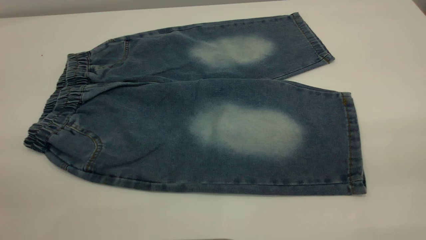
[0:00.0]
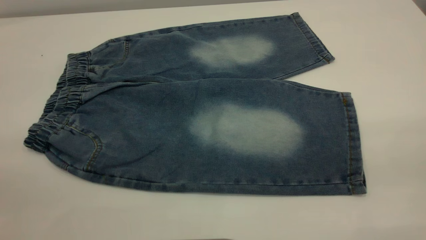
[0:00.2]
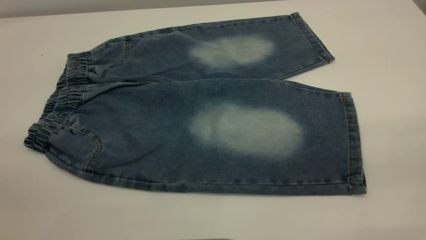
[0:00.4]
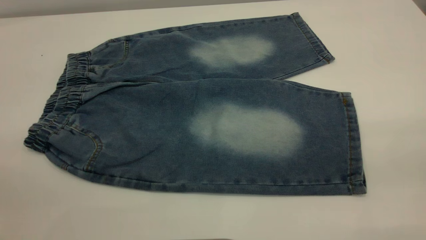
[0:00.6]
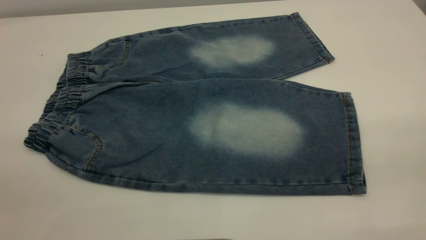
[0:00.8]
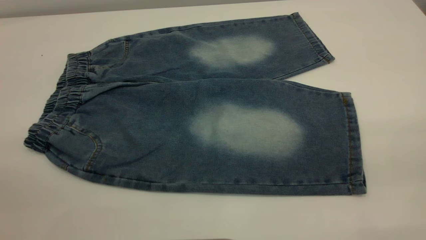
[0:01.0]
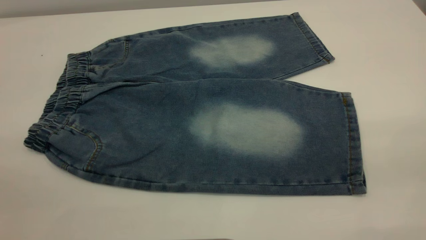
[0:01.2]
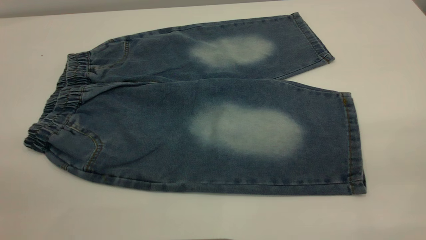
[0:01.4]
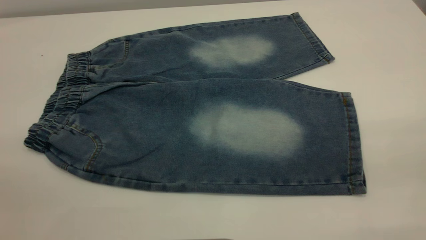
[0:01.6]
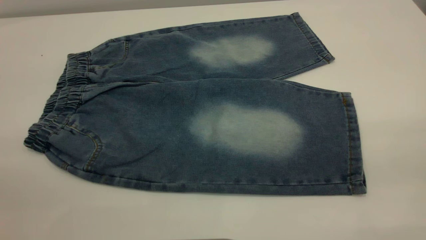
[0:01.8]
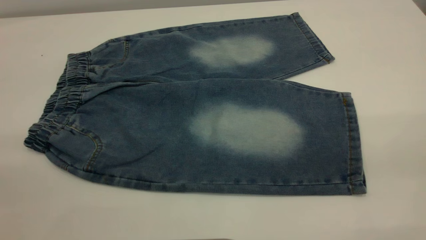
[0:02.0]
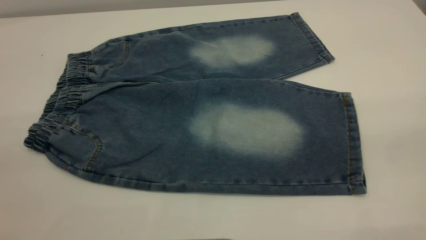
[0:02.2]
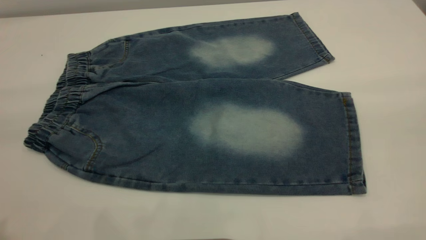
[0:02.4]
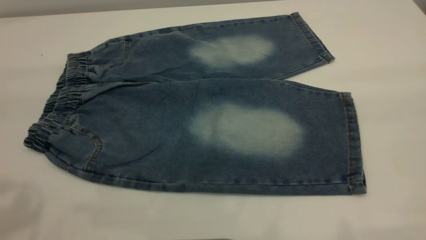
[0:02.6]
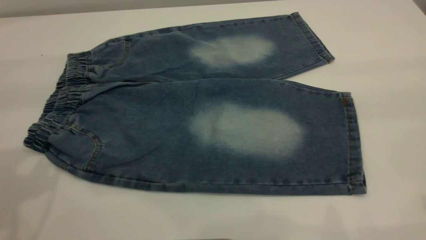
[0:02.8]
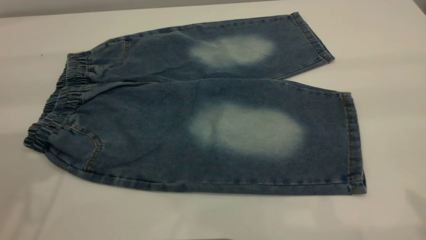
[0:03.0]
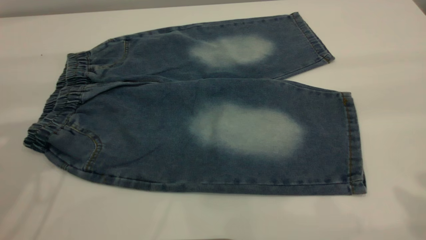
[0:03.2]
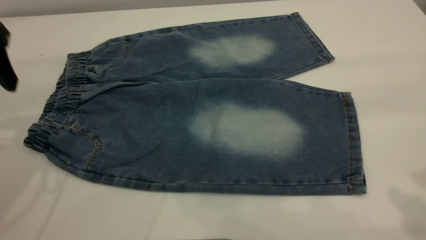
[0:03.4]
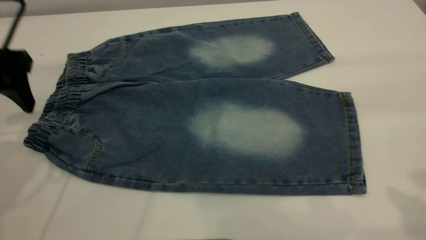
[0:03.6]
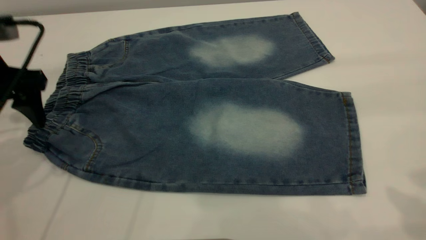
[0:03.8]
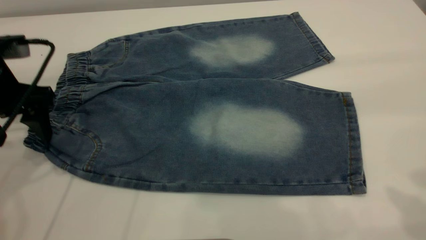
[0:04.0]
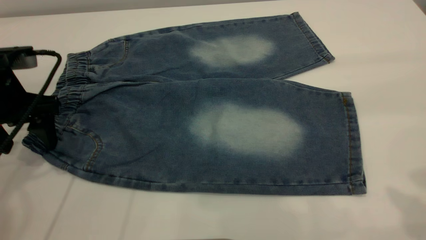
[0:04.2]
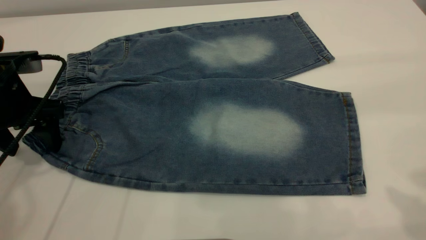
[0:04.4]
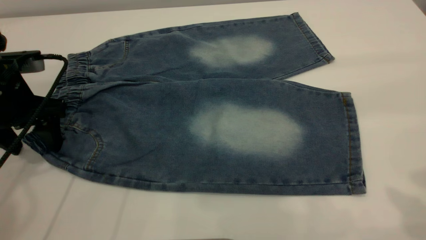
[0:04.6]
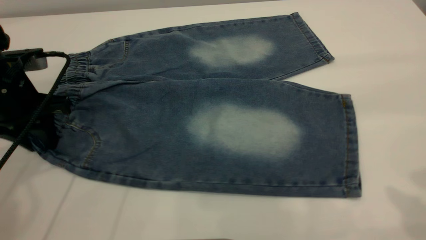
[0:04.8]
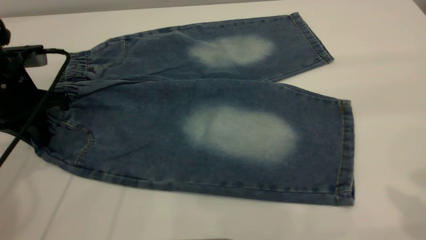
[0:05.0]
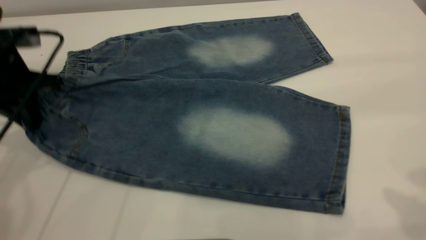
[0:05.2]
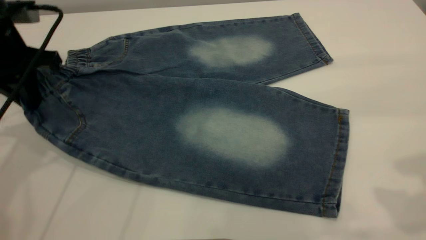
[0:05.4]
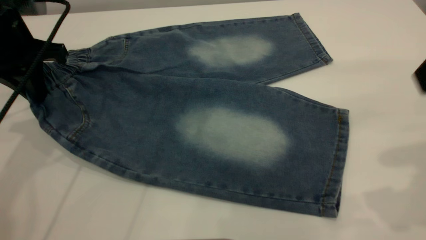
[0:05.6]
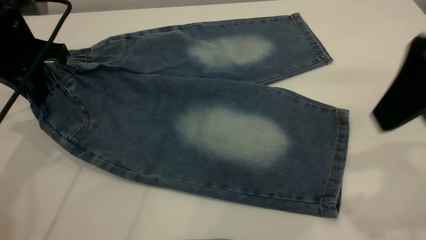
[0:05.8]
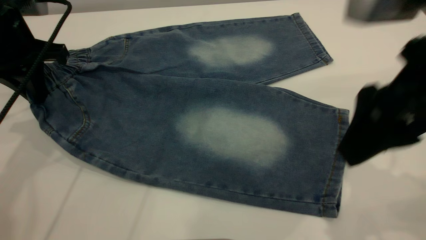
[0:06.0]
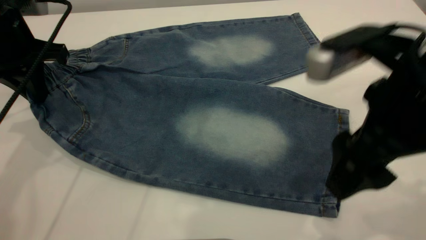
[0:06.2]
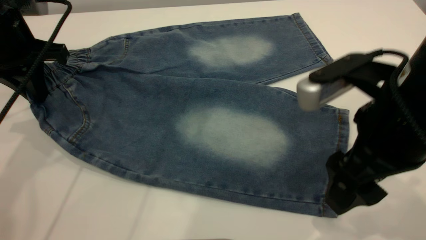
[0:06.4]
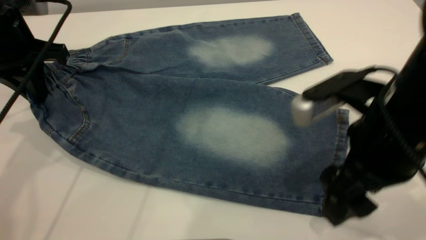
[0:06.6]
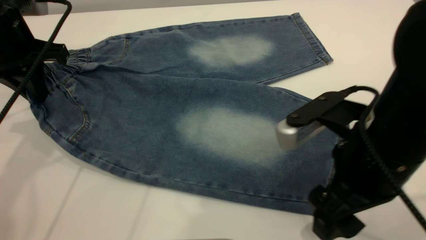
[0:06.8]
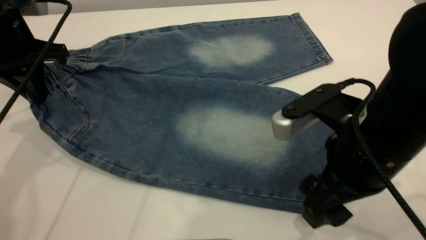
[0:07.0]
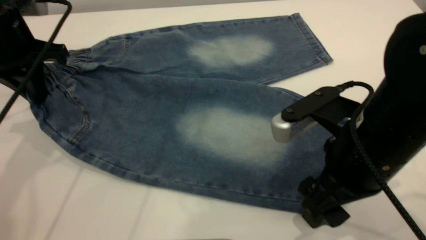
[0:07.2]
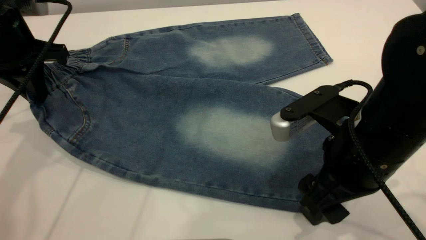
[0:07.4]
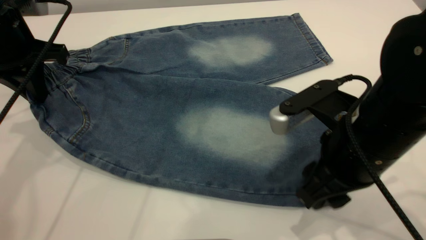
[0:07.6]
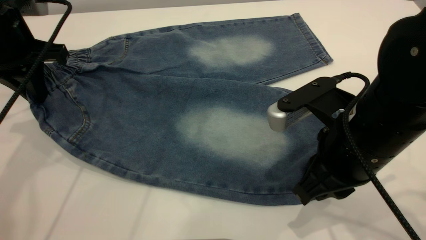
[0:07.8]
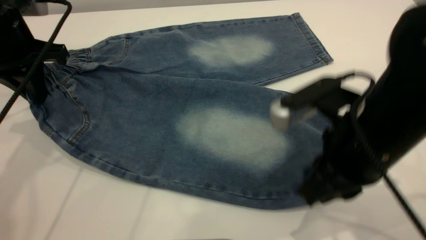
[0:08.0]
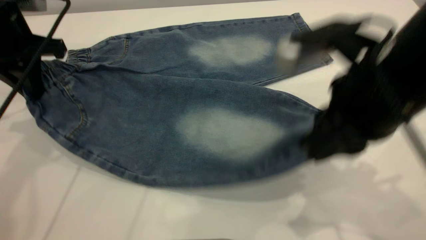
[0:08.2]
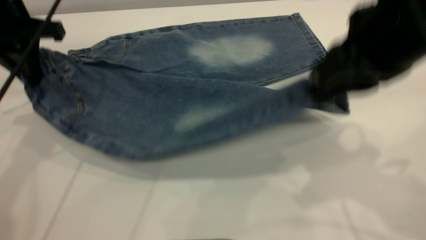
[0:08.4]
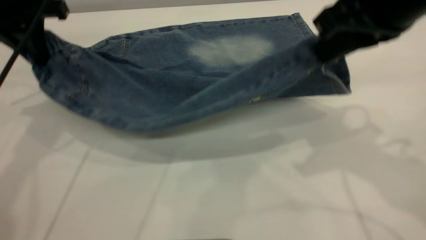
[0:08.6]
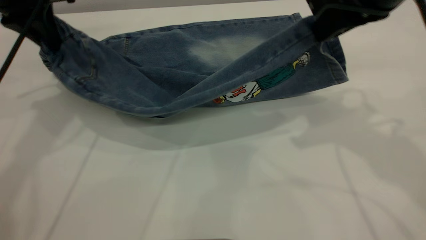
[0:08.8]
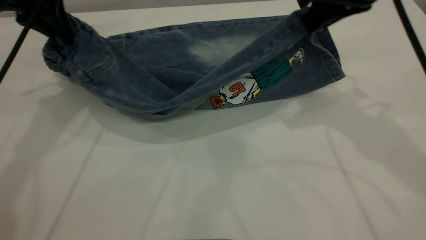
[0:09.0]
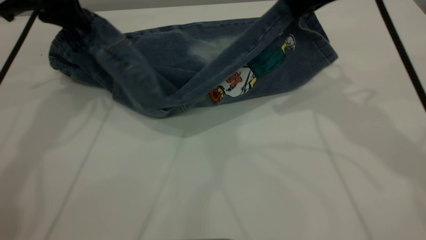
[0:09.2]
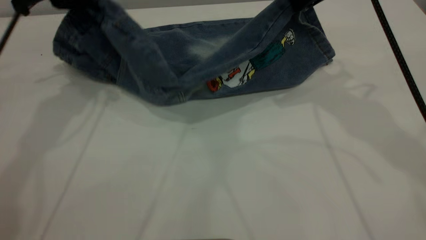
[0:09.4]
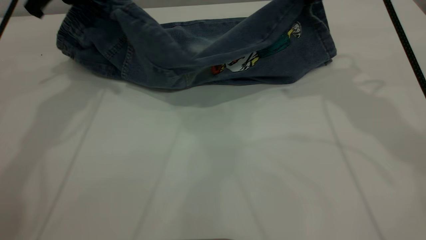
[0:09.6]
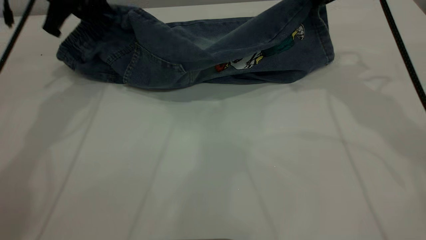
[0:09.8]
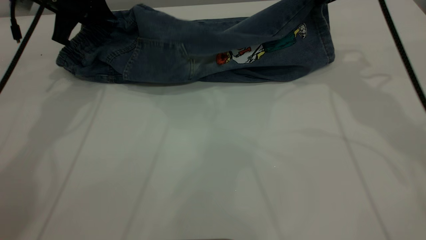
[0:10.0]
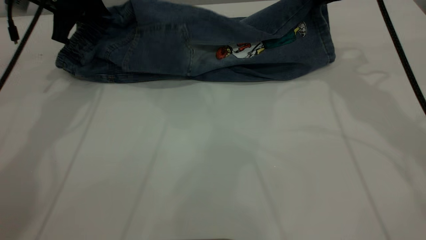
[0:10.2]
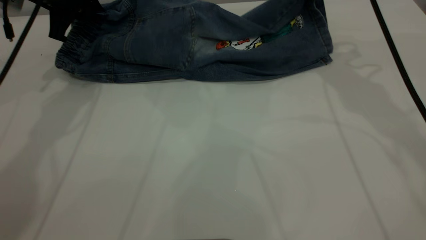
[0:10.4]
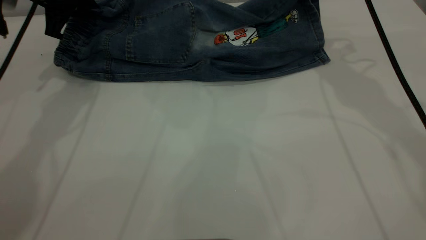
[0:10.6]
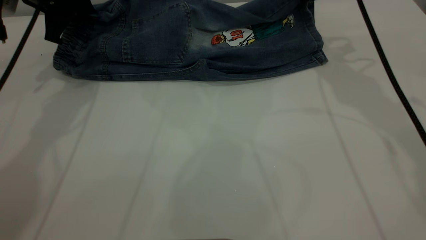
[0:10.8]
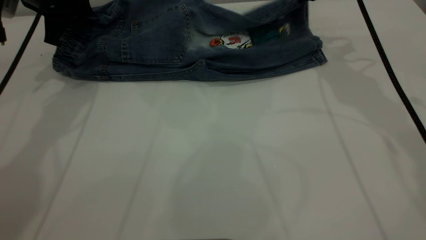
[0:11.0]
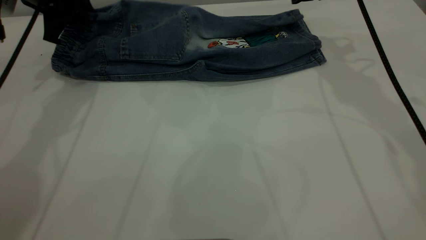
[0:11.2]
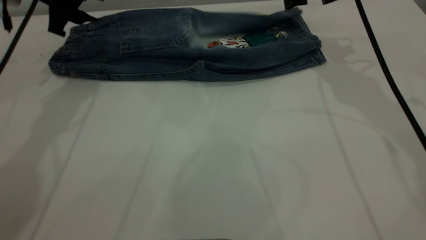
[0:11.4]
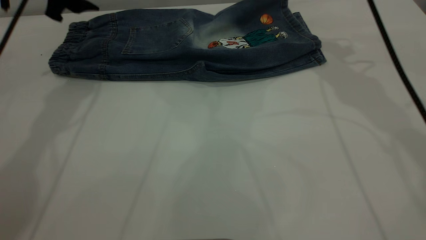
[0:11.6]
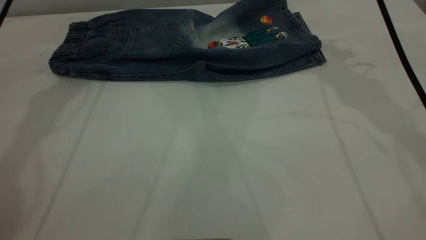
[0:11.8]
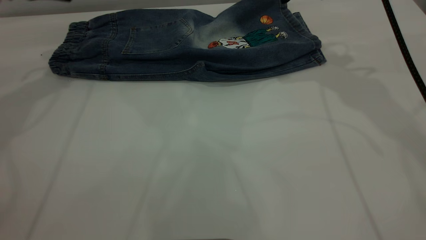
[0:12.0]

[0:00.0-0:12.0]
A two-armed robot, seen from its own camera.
Step, 0:00.0 to 0:11.6: Fold the bottom of the pants upward.
0:00.0 to 0:01.6: Neither gripper changes place.
0:03.0 to 0:04.4: The left gripper goes roughly 20 cm downward.
0:04.4 to 0:06.0: The right gripper is displaced downward and to the left by some 15 cm, while the left gripper goes some 5 cm upward, and closes up.
0:06.0 to 0:07.6: The right gripper is displaced downward by roughly 10 cm, and closes.
0:07.6 to 0:09.0: The right gripper is displaced forward and upward by roughly 20 cm, and closes. Meanwhile the left gripper moves forward, approximately 5 cm.
0:09.0 to 0:10.4: The left gripper moves some 5 cm. The right gripper heads forward, covering approximately 10 cm.
0:10.4 to 0:12.0: The left gripper heads to the left, covering some 5 cm, and opens; the right gripper opens up.

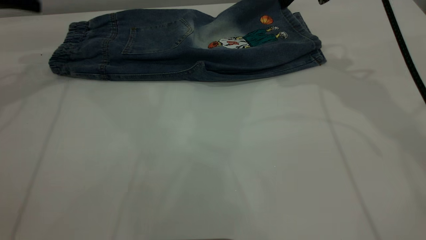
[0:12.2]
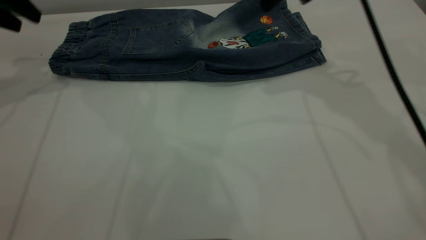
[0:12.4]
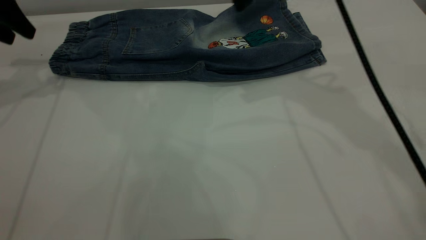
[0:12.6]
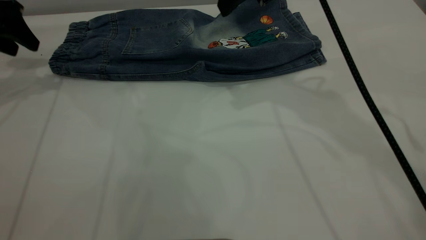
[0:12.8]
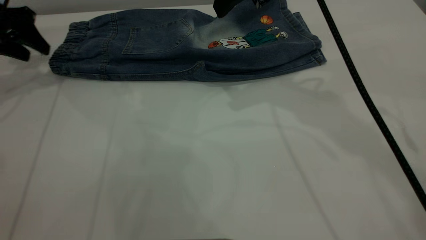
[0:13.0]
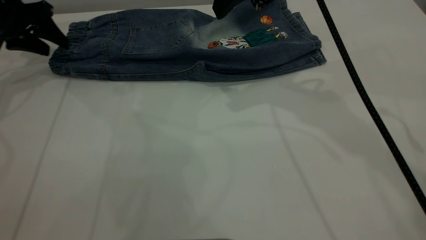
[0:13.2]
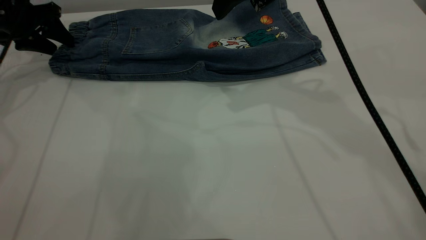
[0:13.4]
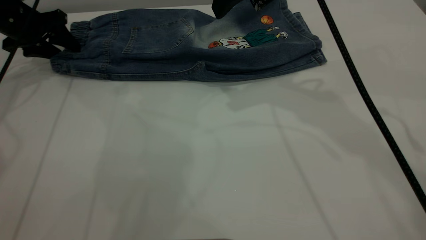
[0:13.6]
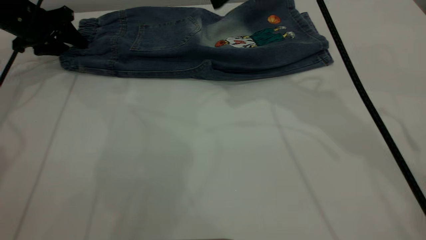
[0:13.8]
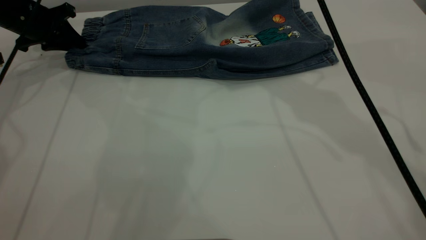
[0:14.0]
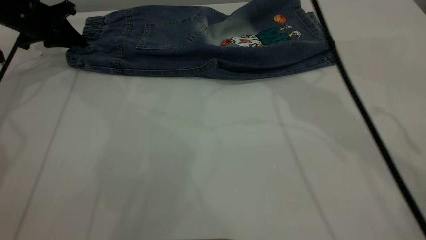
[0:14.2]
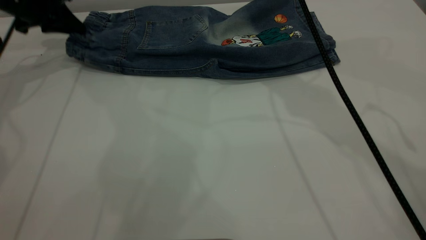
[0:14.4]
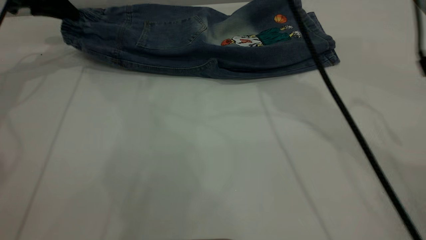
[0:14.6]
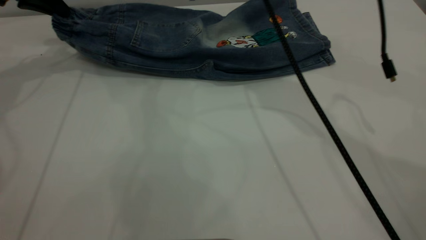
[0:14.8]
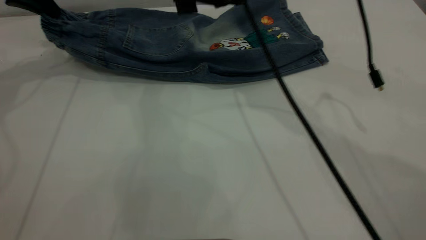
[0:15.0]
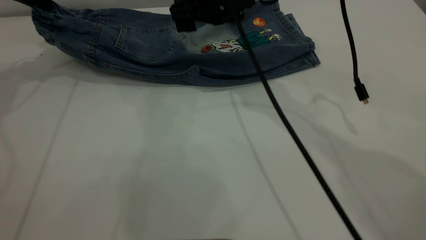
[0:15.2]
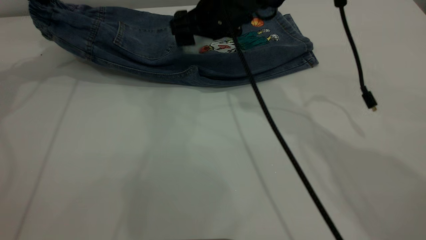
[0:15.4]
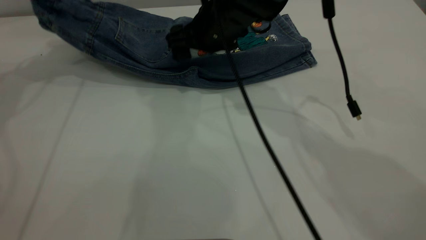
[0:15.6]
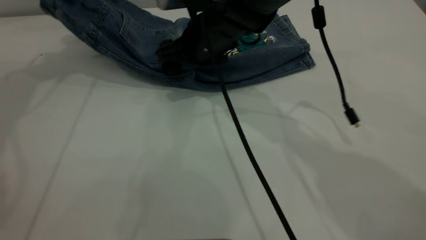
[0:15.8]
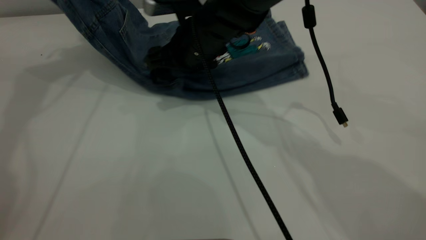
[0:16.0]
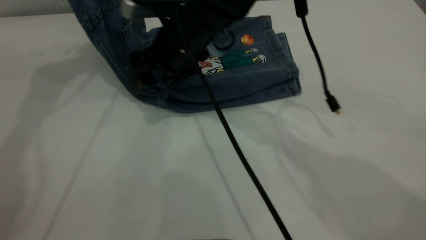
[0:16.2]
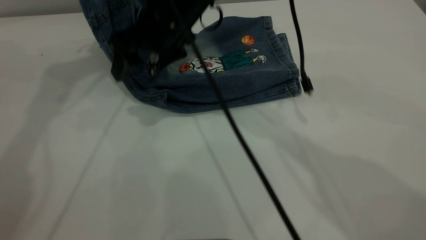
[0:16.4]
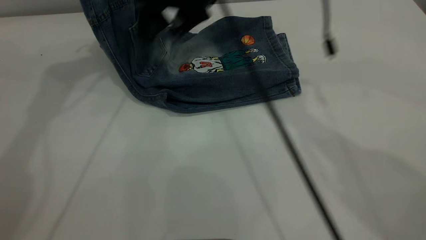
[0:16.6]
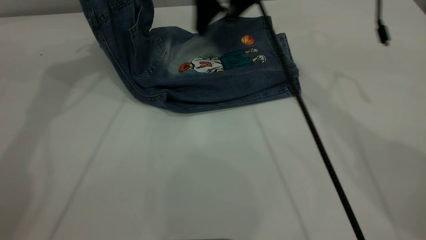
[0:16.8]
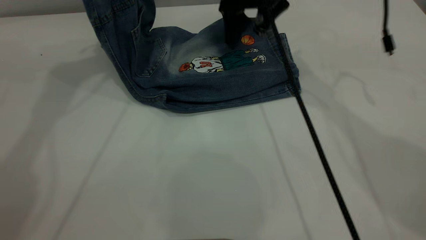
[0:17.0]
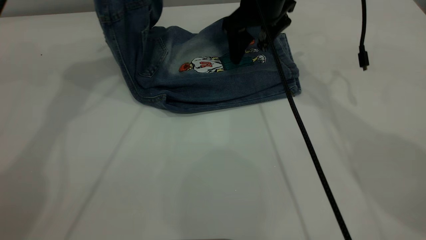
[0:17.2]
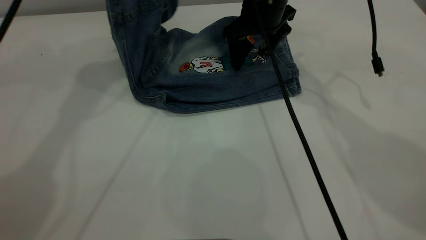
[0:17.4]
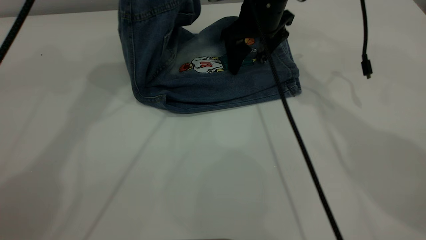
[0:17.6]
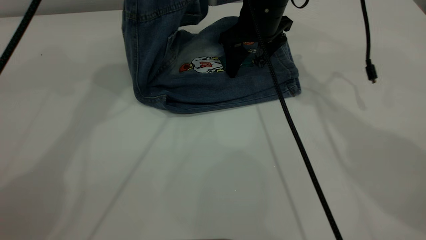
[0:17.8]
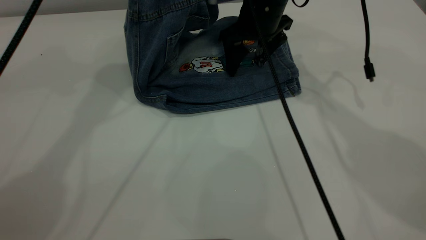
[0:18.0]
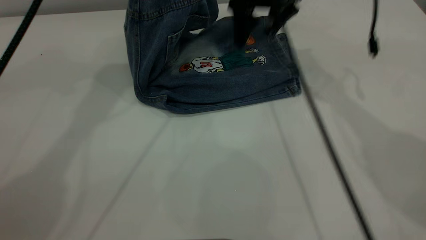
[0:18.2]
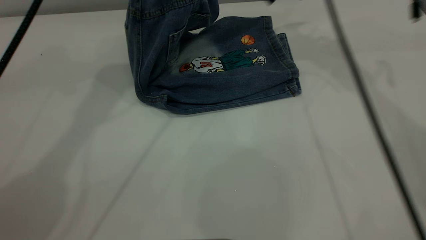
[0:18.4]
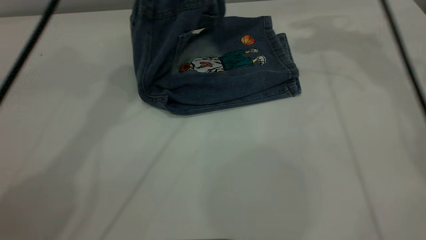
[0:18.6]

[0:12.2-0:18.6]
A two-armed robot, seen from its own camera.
0:12.2 to 0:13.8: The right gripper heads to the left, covering approximately 10 cm. The left gripper heads downward and forward, covering roughly 15 cm.
0:13.8 to 0:15.4: The left gripper goes about 15 cm upward, and closes up, while the right gripper moves downward and to the left, roughly 15 cm.
0:15.4 to 0:17.0: The left gripper shifts some 15 cm to the right and upward, while the right gripper goes approximately 5 cm to the right.
0:17.0 to 0:18.6: The right gripper goes roughly 20 cm to the right and upward. Meanwhile the left gripper goes about 10 cm to the right.
